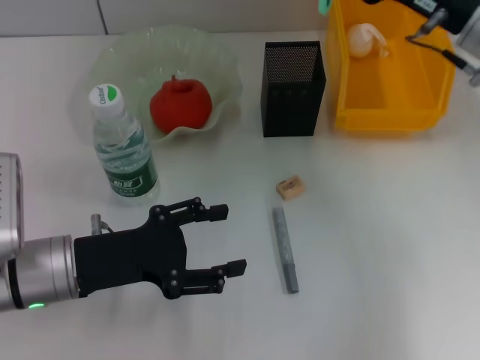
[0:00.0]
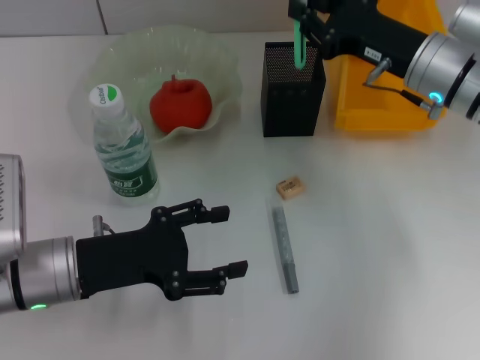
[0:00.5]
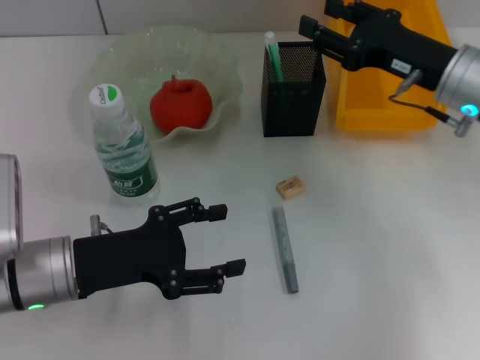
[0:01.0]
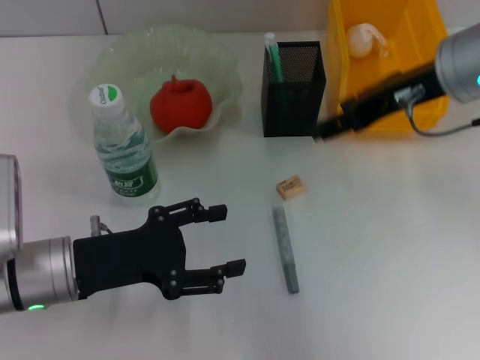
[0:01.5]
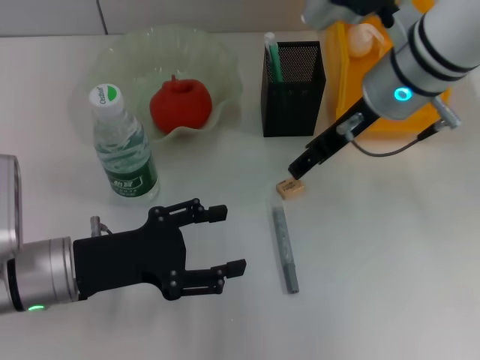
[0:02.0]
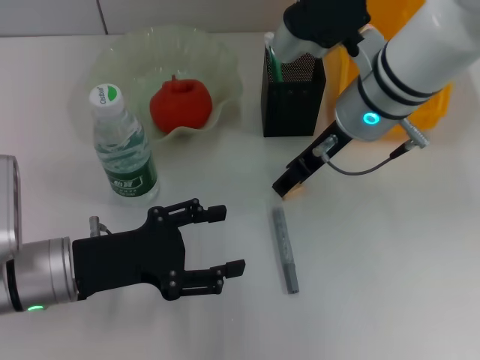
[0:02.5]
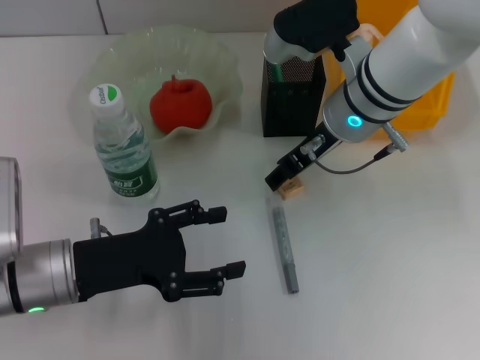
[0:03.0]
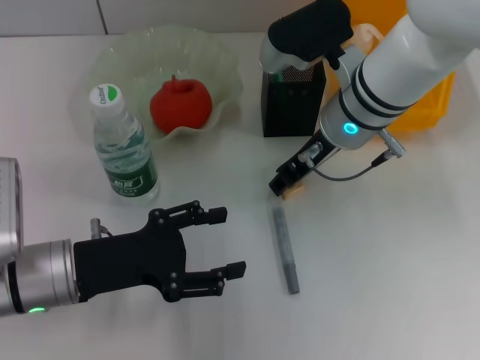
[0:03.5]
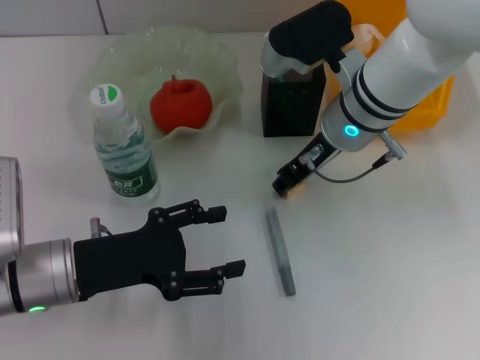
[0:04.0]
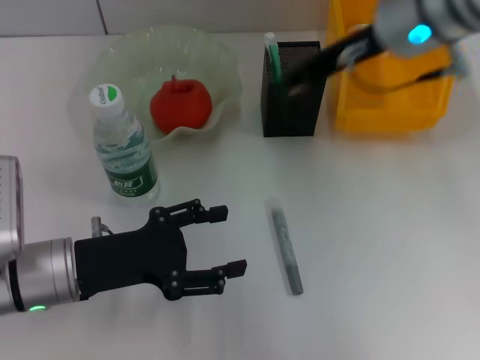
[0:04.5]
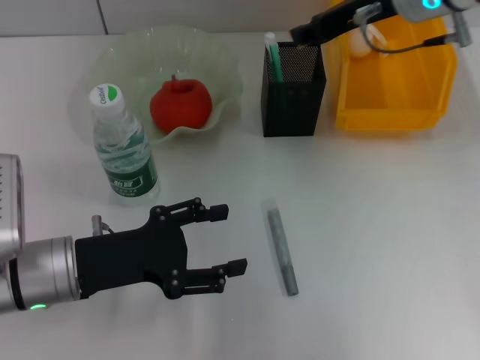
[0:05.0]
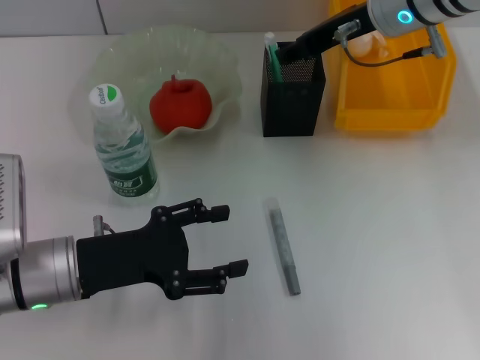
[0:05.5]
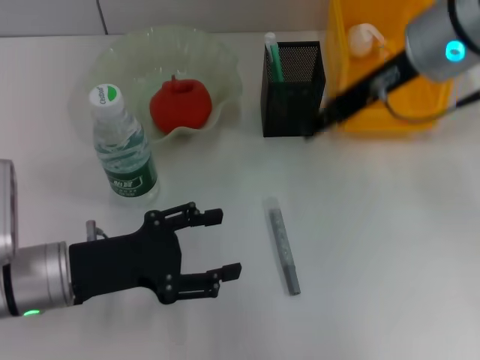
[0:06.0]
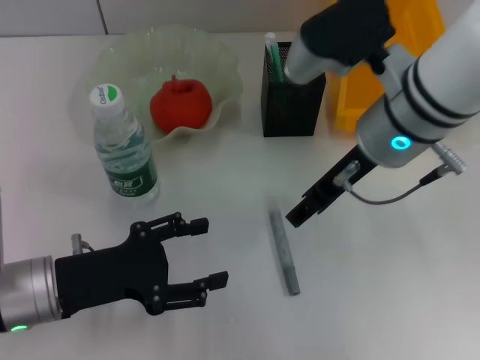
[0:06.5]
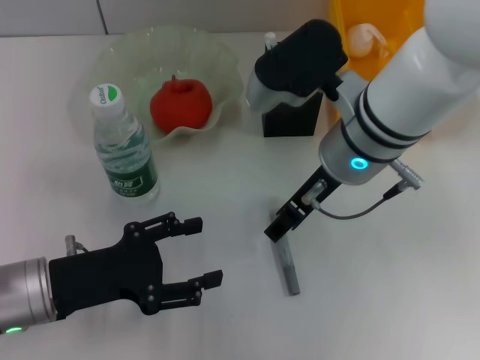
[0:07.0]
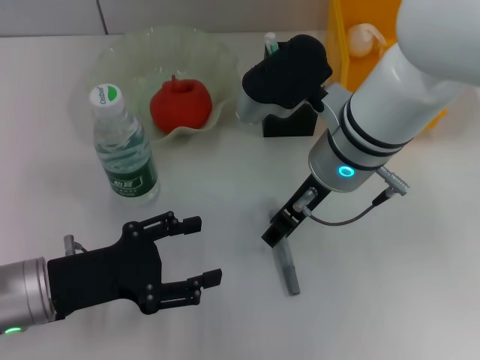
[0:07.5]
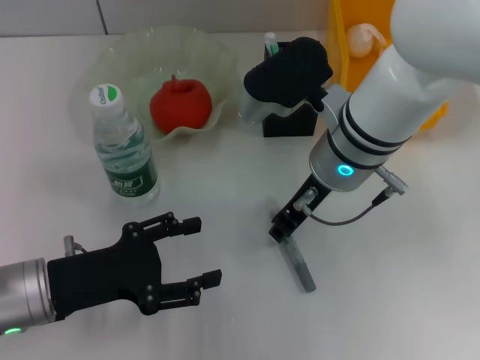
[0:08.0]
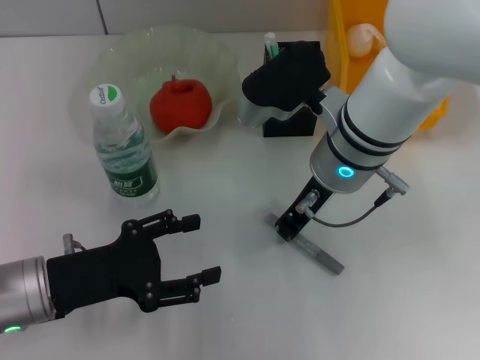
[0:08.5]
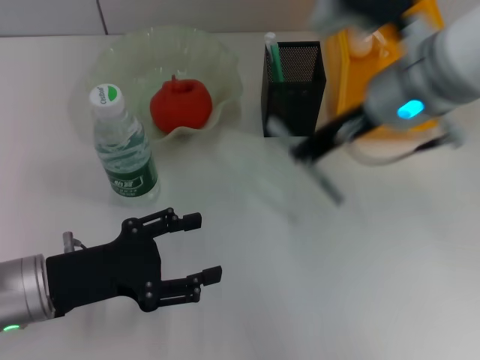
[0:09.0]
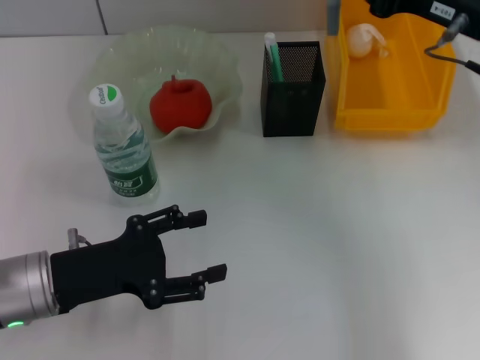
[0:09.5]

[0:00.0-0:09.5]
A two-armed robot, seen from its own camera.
Step, 0:01.0 to 0:03.5: Grab the eraser with the right hand.
Step, 0:04.5 to 0:05.5: Put the eraser into the pen holder with the right hand.
Step, 0:06.0 to 0:08.5: Grab the gray glue with the right hand.
0:00.0 to 0:02.0: The right gripper shifts roughly 10 cm to the left, and opens up.
0:02.0 to 0:04.0: The right gripper ends up about 5 cm from where it was, and closes its fingers.
0:04.0 to 0:05.5: The right gripper is displaced upward by approximately 5 cm.
0:05.5 to 0:07.5: The right gripper is displaced backward, to the left and downward by about 15 cm.
0:07.5 to 0:09.5: The right gripper travels to the right by approximately 15 cm, and closes its fingers.

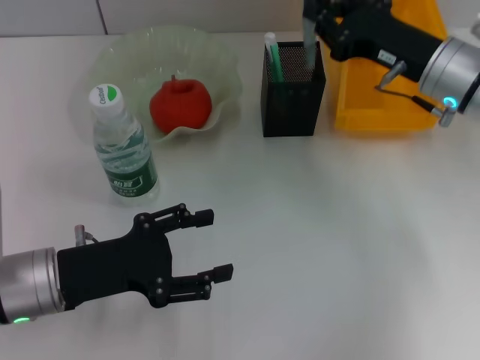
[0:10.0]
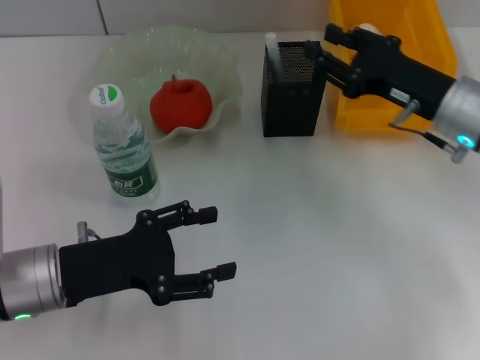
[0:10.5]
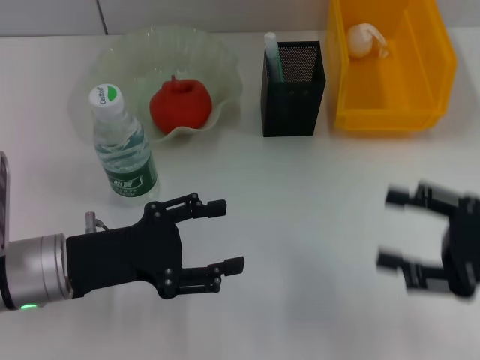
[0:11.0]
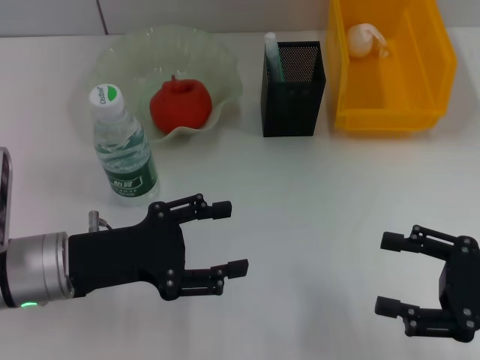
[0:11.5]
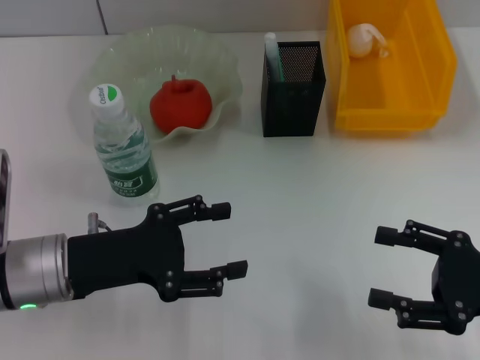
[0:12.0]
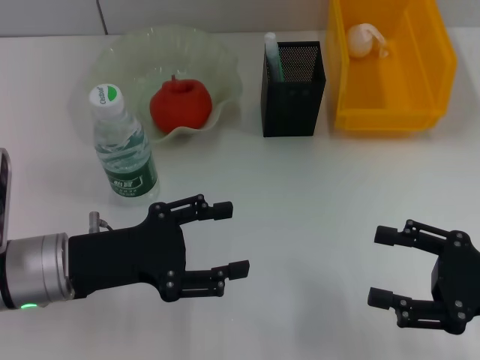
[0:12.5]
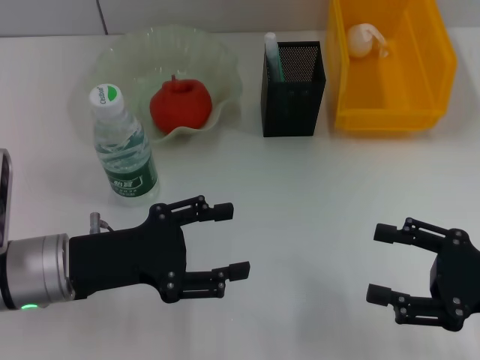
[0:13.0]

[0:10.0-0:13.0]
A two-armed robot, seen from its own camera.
0:10.0 to 0:11.5: The right gripper goes some 20 cm backward and to the right, and opens its fingers.
0:11.5 to 0:13.0: Neither gripper changes place.
